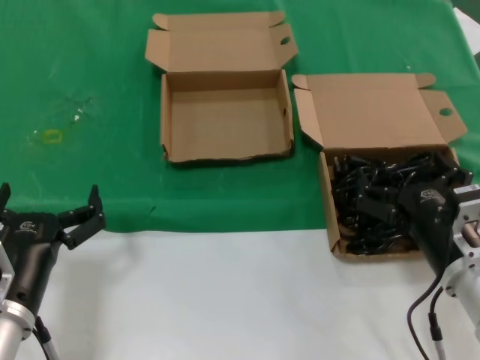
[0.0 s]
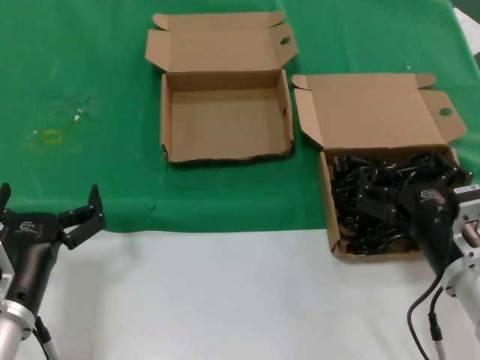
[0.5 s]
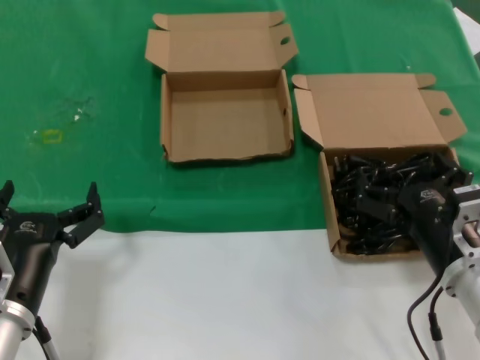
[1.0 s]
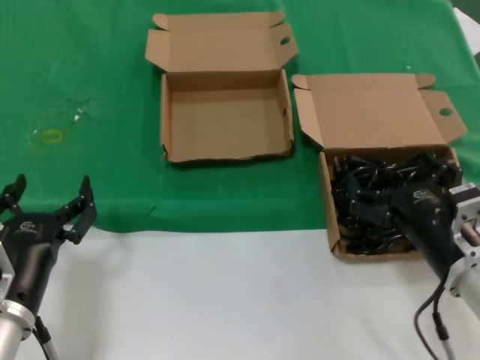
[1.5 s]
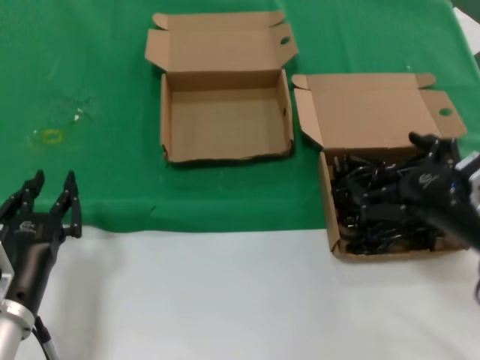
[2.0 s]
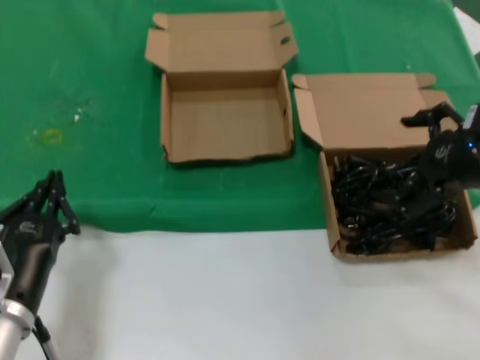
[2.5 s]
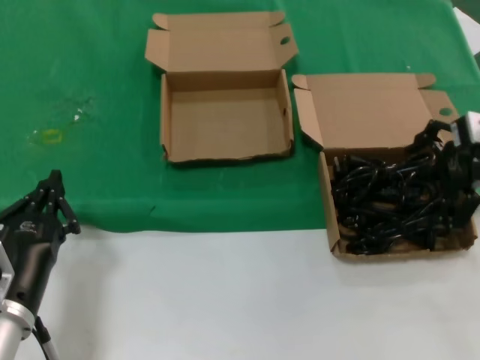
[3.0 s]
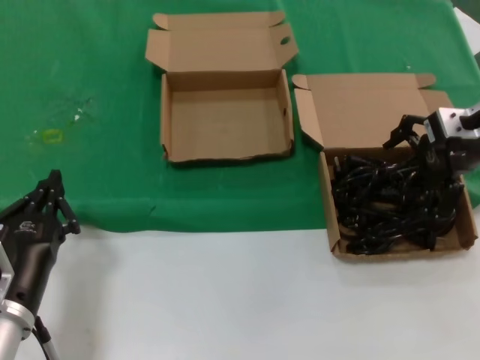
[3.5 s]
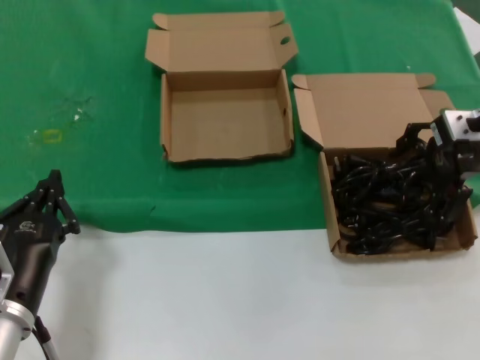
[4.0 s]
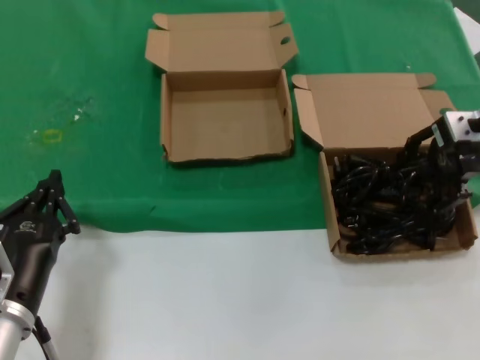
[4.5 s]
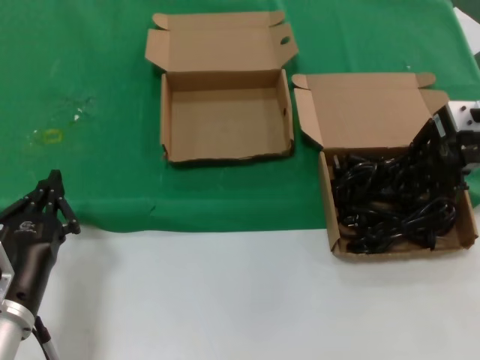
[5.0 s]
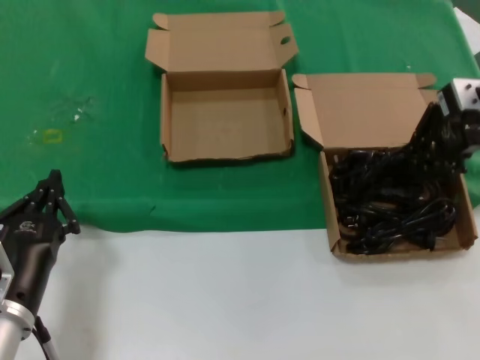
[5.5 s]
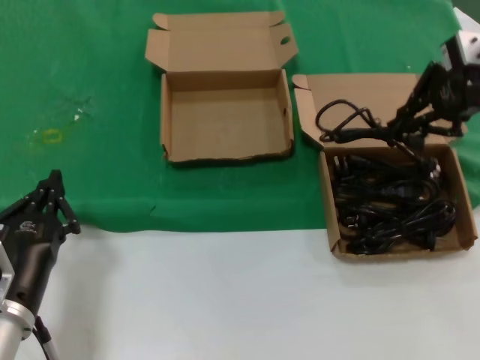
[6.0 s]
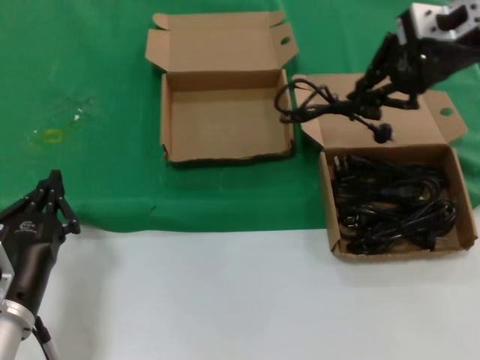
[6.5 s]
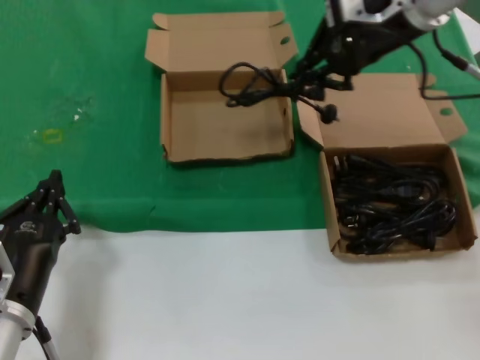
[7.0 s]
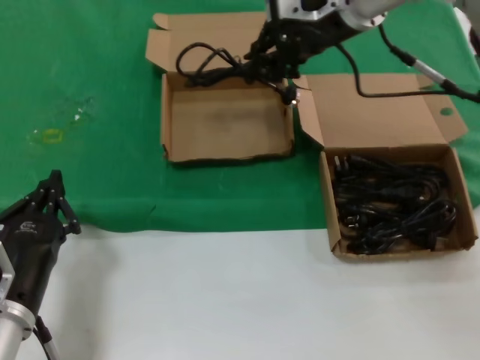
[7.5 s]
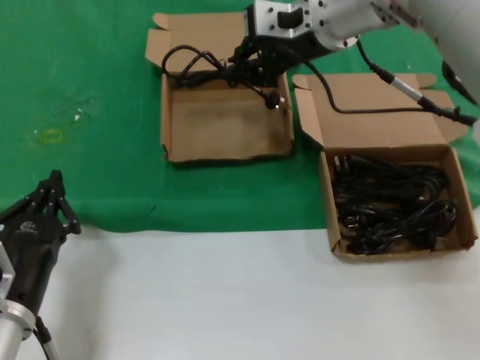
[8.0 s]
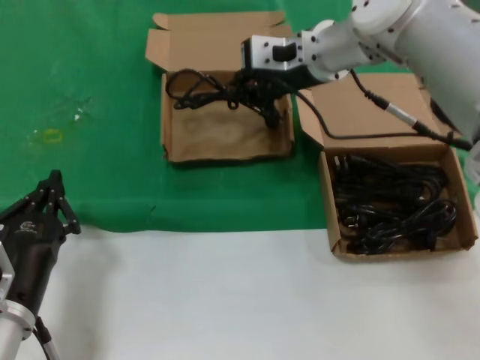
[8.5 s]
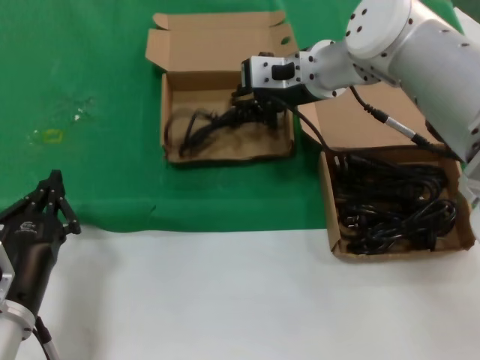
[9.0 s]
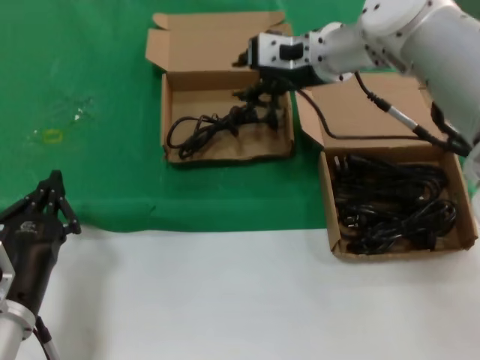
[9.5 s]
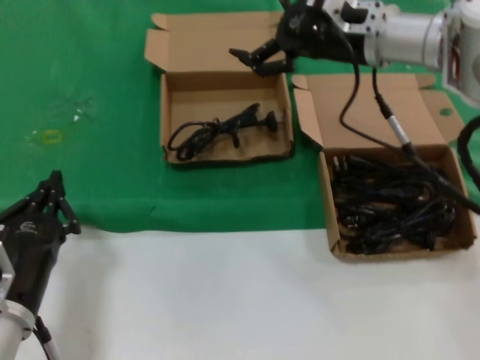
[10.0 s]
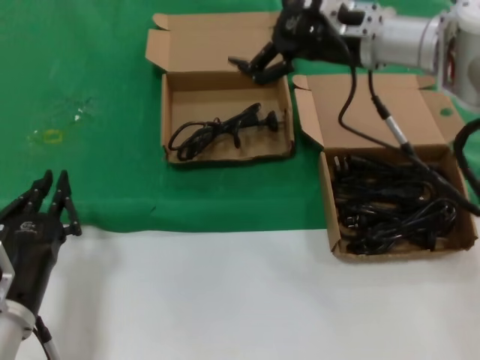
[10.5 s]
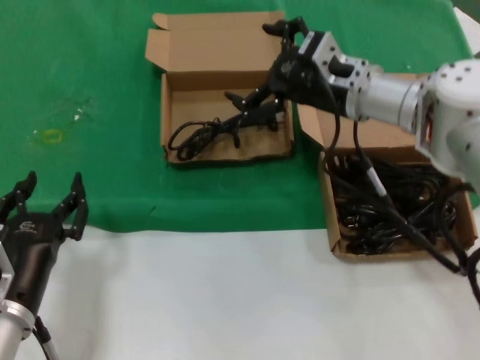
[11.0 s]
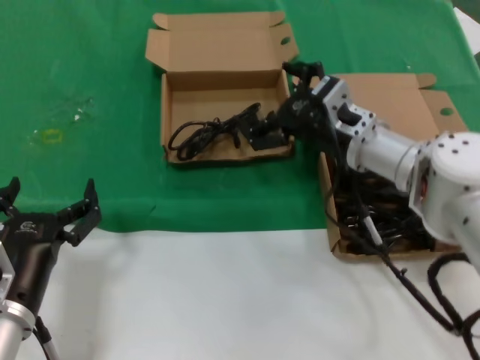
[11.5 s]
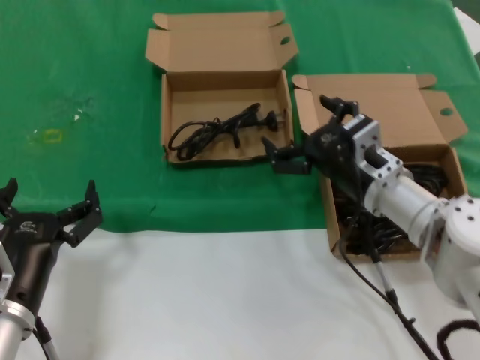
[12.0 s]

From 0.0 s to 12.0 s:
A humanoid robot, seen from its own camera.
Task of the whole recording: take the parts from the box containing them and put them into an empty box.
Step, from 0.0 s to 5.0 s: Grasp the data cable.
Step, from 5.5 s to 9.5 s: Place the data cable in the another box.
From 0.0 s to 2.0 s: The right hand travels upward and to the right by about 10 cm.
From 2.0 s to 4.0 s: The right hand is displaced forward and upward by approximately 20 cm.
From 4.0 s to 6.0 s: The right hand shifts some 10 cm upward.
From 6.0 s to 8.0 s: The right hand goes about 20 cm to the left.
From 8.0 s to 10.0 s: The right hand heads to the right, covering roughly 5 cm.
From 10.0 s to 12.0 s: The right hand shifts approximately 20 cm downward and backward.

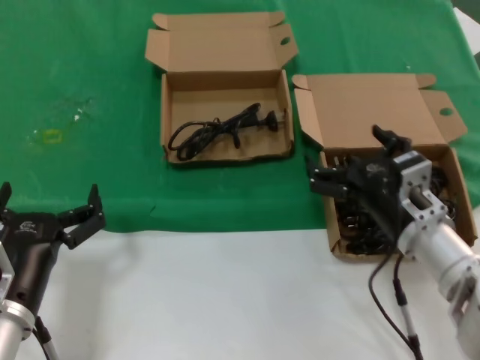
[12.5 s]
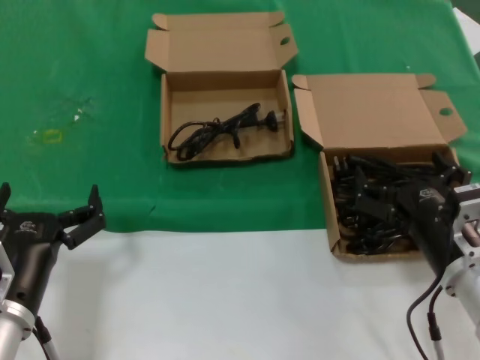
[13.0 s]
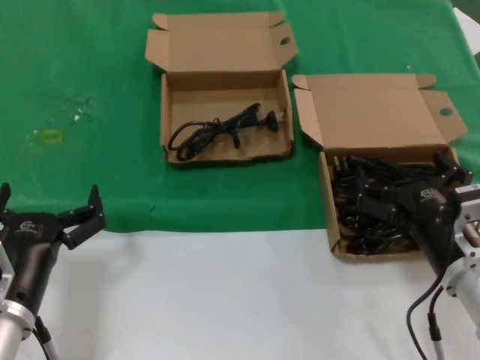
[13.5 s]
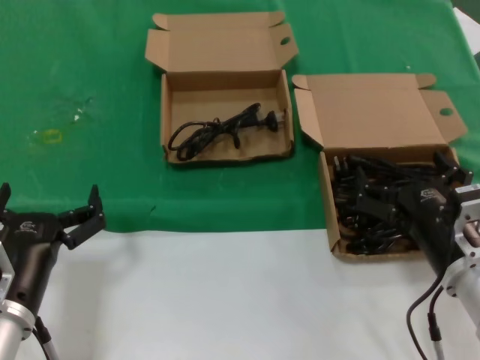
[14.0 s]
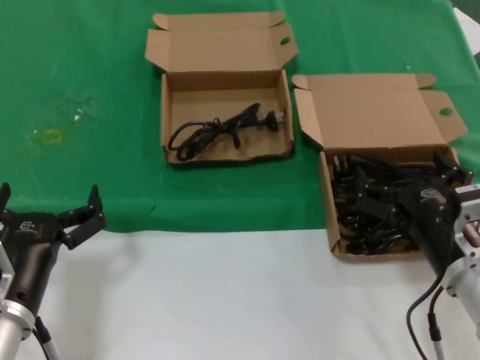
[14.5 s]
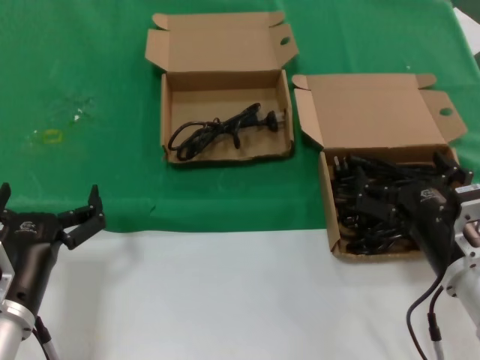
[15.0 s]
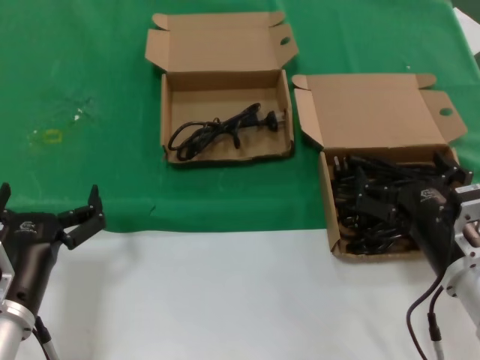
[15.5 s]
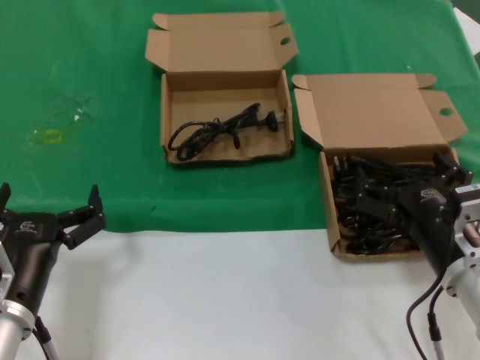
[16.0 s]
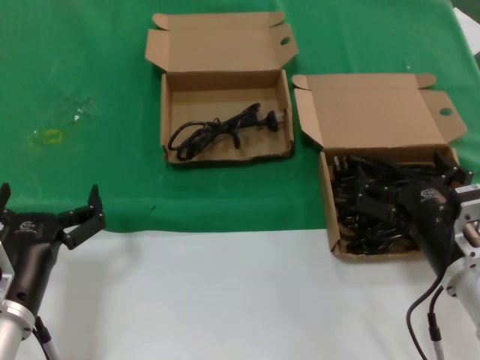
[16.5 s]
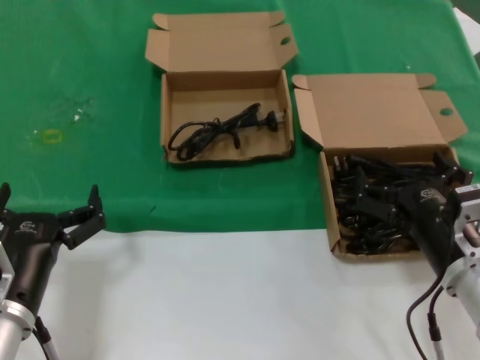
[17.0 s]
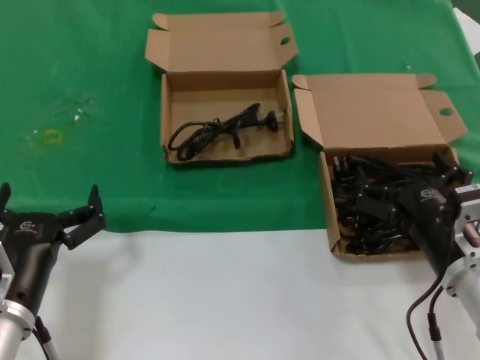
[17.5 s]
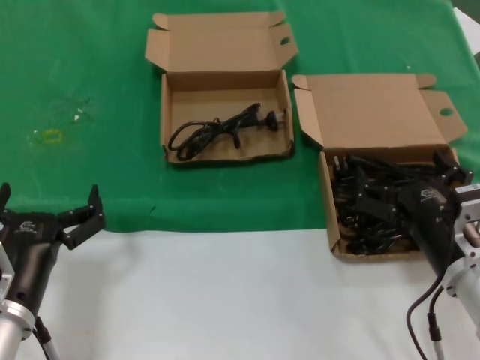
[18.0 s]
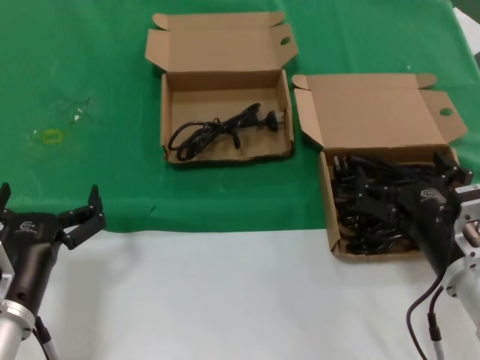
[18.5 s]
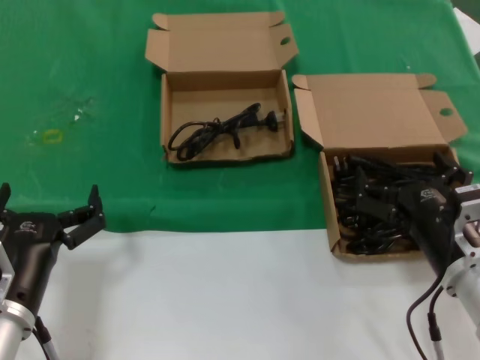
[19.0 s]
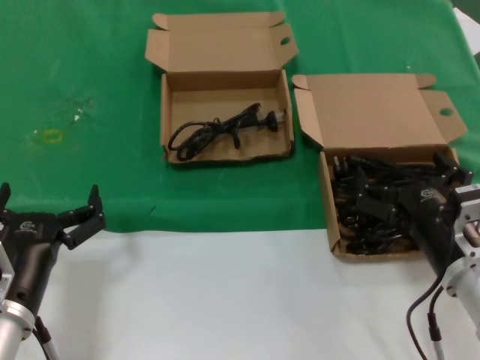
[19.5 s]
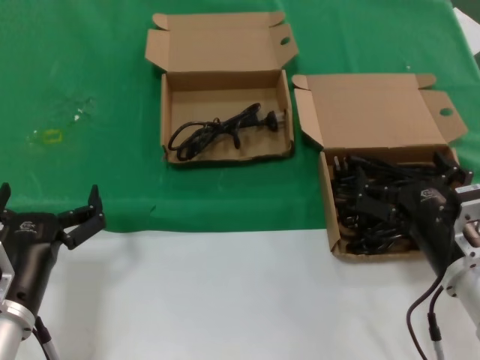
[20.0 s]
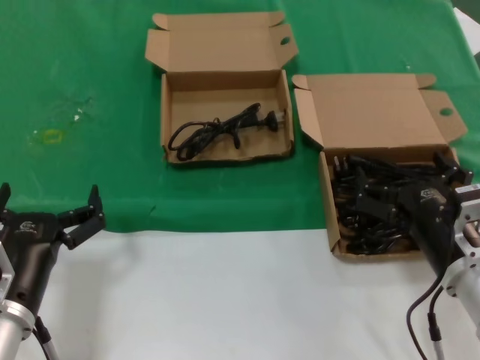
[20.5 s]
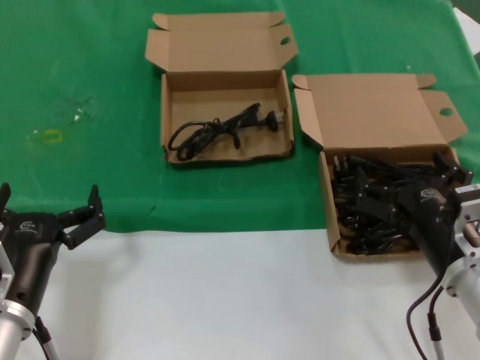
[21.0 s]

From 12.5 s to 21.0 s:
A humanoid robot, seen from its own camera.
Task of the whole recording: take the parts from the box containing them and put them into an empty box.
From 12.5 s to 14.5 s: The right hand travels backward by about 5 cm.
From 14.5 s to 21.0 s: Neither hand changes place.

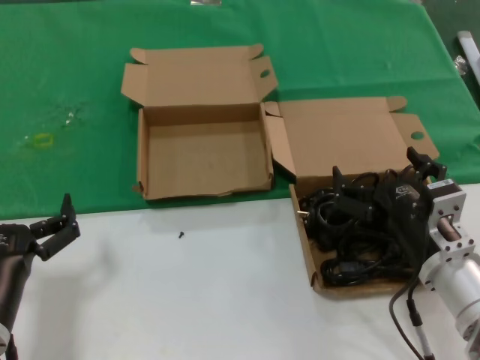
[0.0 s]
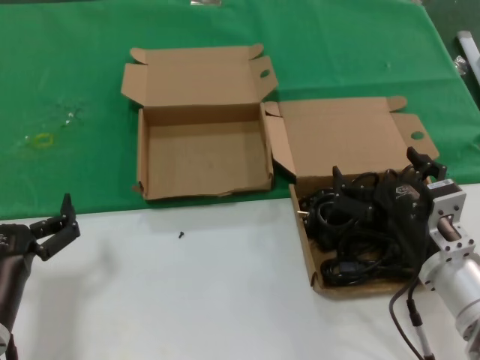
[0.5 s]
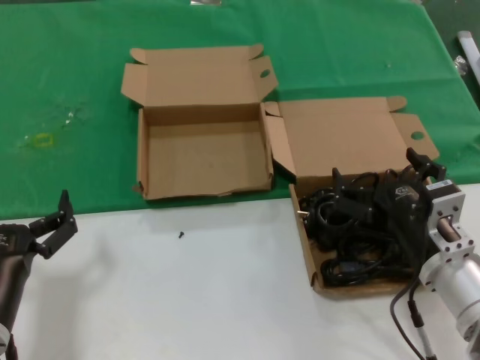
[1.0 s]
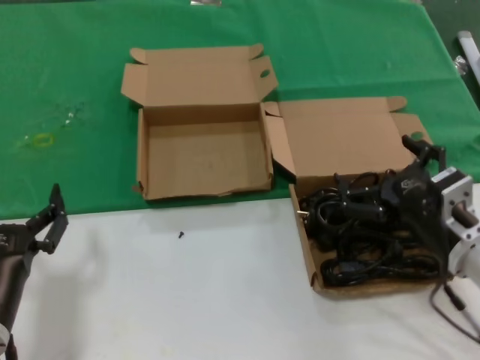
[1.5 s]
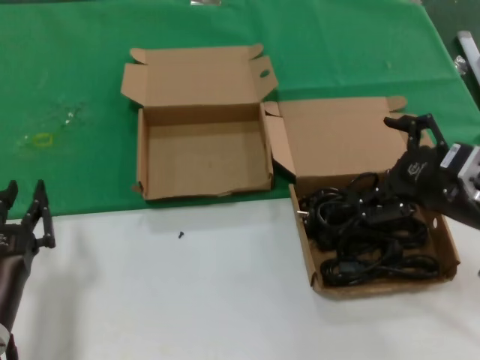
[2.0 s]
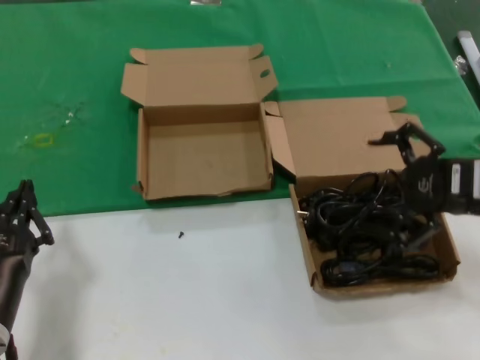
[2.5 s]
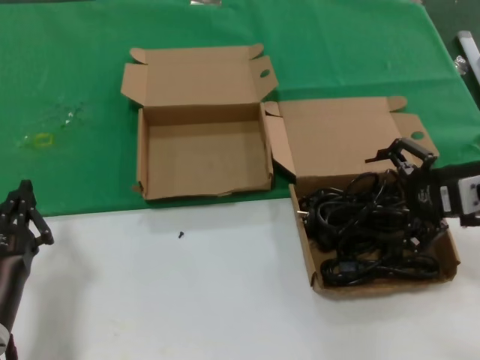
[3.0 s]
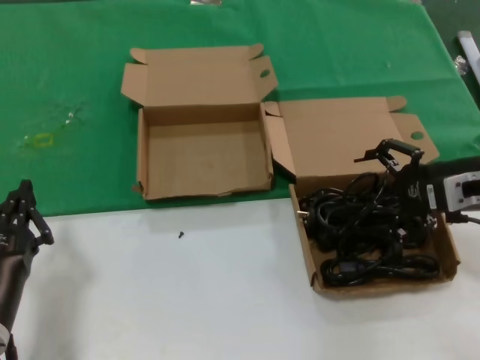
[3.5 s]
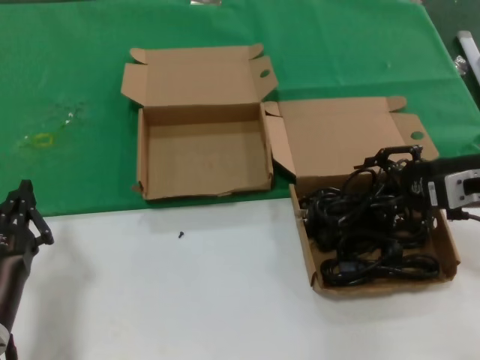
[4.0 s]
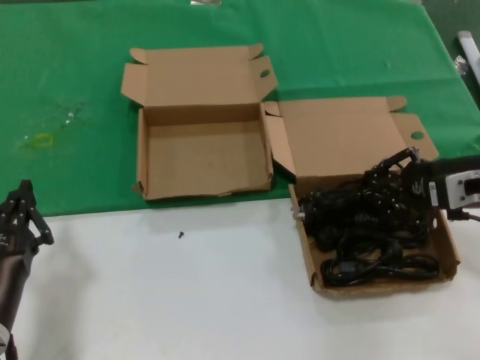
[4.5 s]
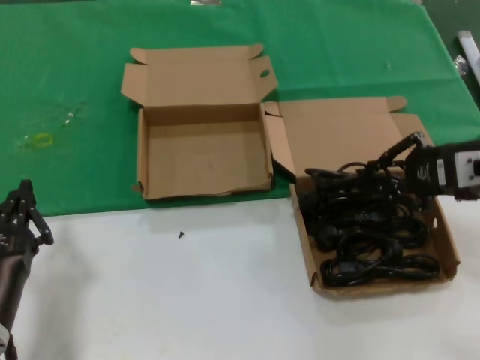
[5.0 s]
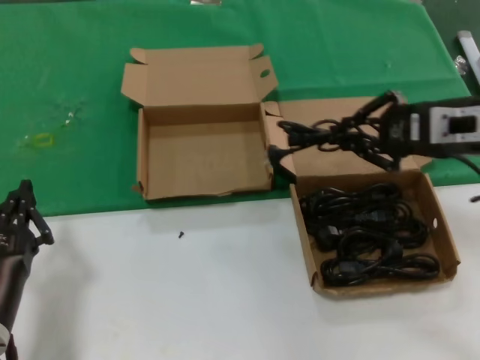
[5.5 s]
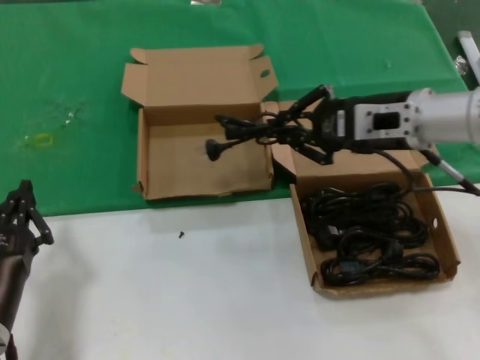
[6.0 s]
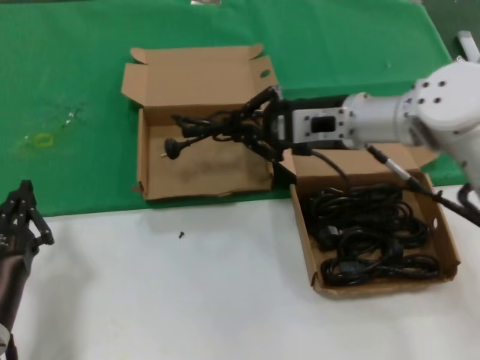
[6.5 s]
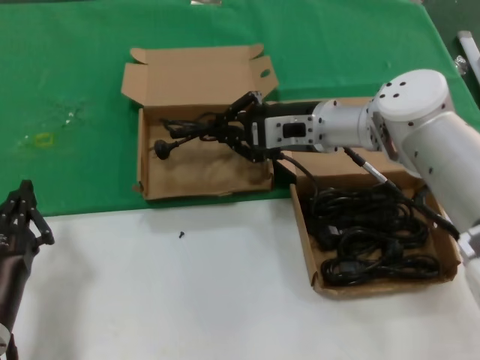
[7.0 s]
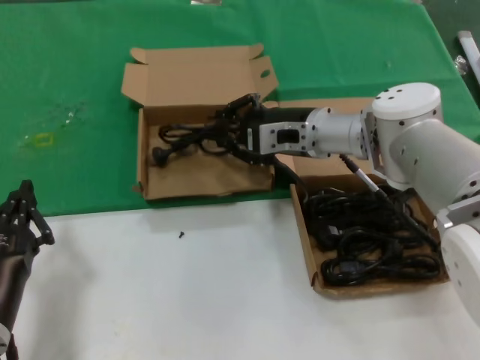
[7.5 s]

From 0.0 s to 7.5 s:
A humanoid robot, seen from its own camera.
Task of the whole recording: take the parts from the box containing them and put them into an empty box.
Step, from 0.0 s to 4.5 s: Grasp the data cable.
From 0.0 s to 2.0 s: The right hand is displaced upward and to the right by approximately 15 cm.
From 2.0 s to 4.0 s: The right hand is displaced forward by some 10 cm.
From 4.0 s to 5.5 s: The right hand goes approximately 5 cm upward.
From 5.5 s to 7.5 s: The right hand travels to the left, forward and downward by approximately 25 cm.
